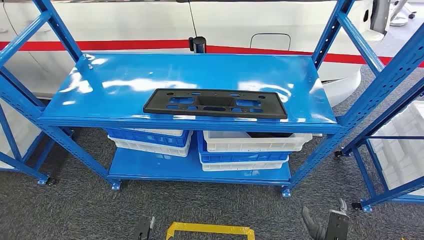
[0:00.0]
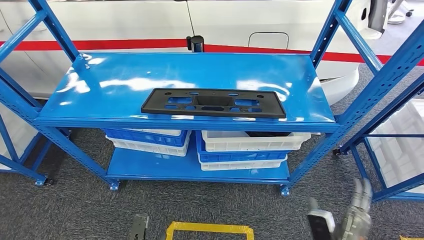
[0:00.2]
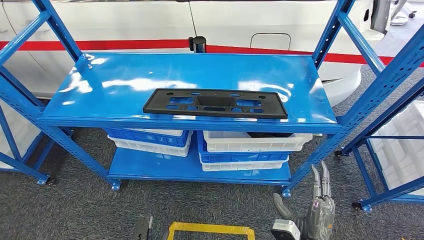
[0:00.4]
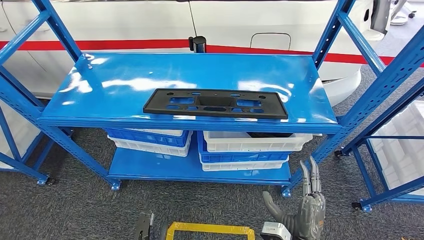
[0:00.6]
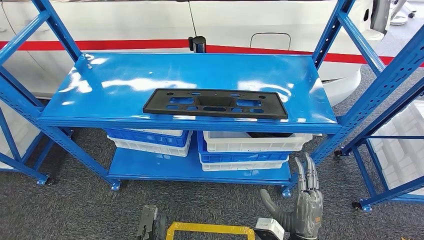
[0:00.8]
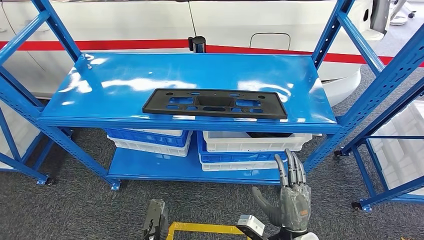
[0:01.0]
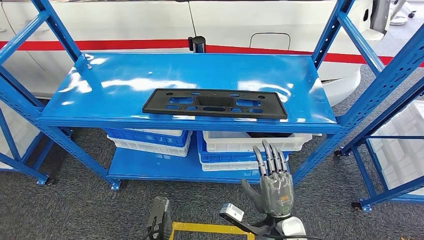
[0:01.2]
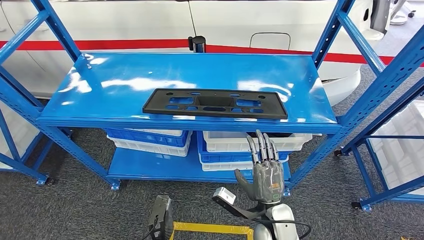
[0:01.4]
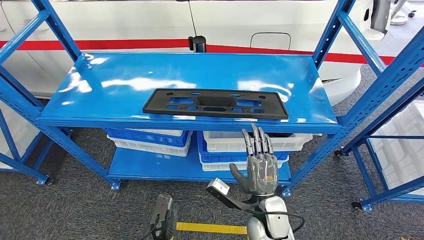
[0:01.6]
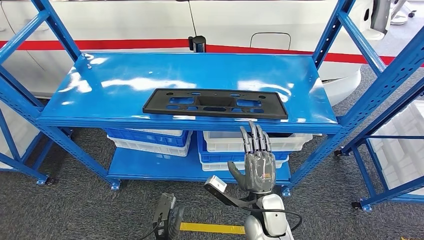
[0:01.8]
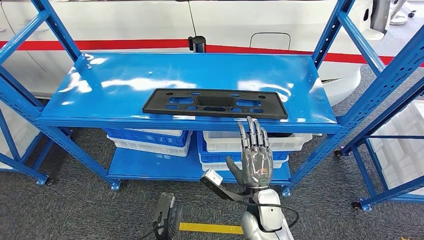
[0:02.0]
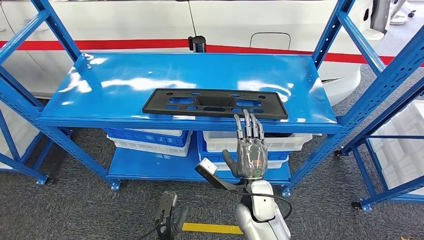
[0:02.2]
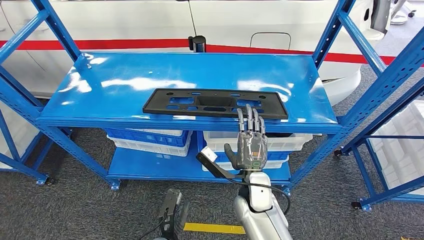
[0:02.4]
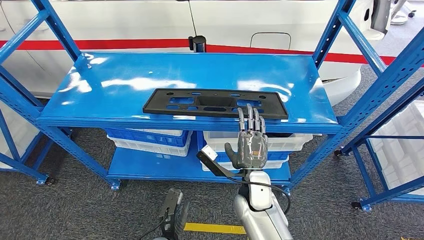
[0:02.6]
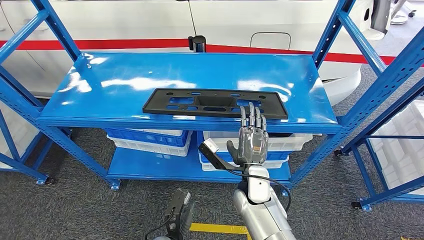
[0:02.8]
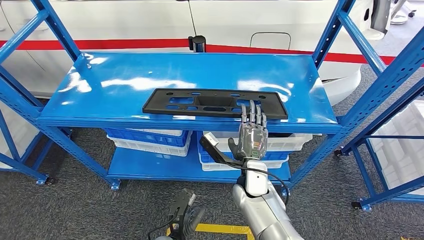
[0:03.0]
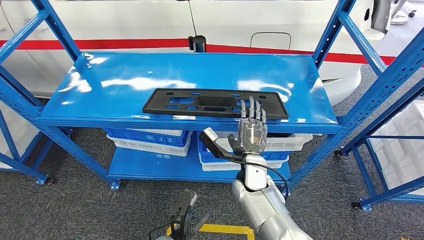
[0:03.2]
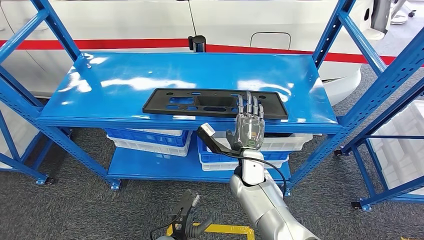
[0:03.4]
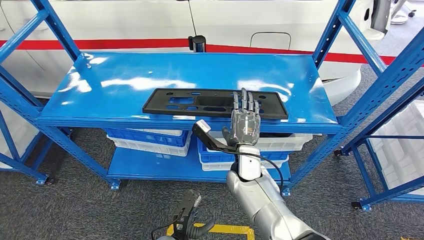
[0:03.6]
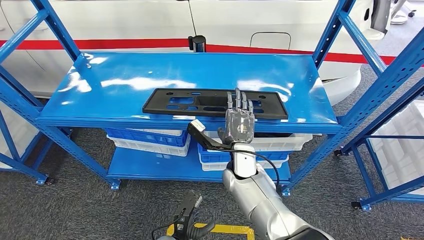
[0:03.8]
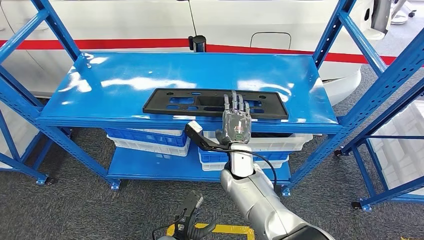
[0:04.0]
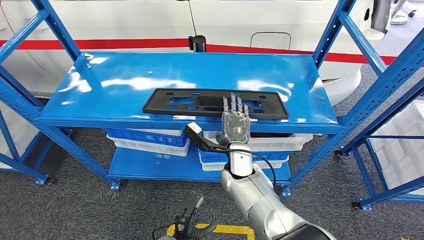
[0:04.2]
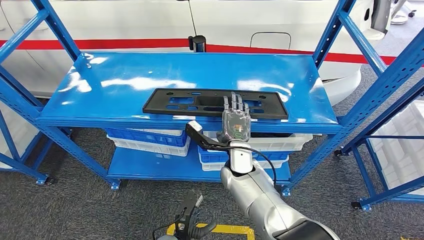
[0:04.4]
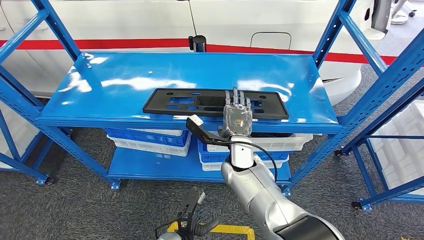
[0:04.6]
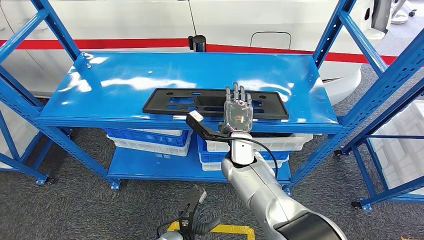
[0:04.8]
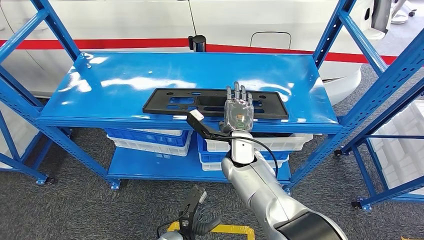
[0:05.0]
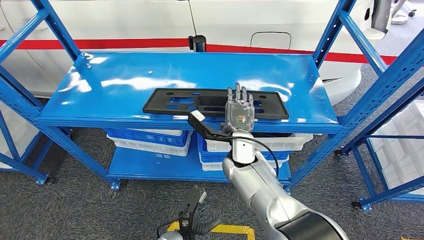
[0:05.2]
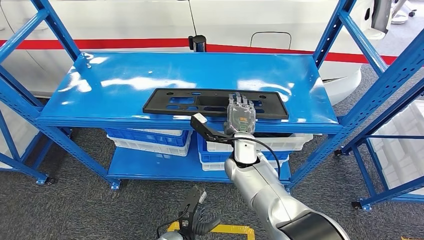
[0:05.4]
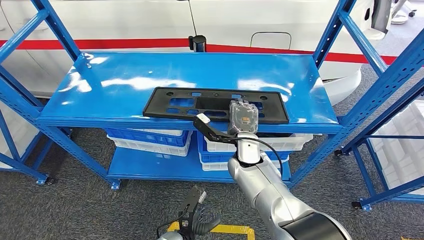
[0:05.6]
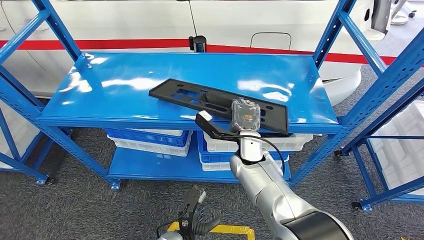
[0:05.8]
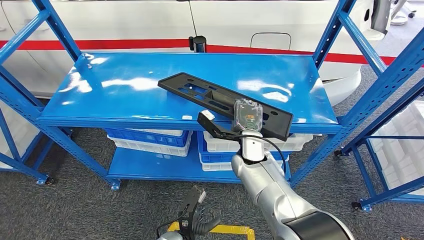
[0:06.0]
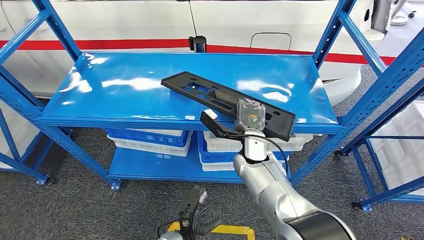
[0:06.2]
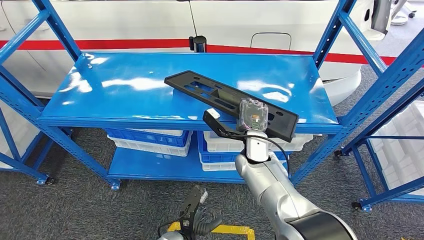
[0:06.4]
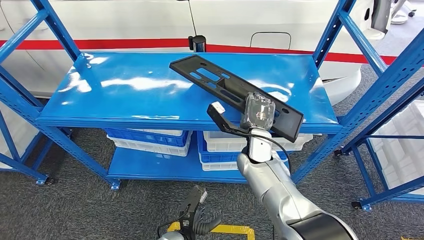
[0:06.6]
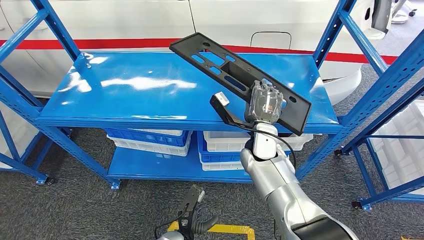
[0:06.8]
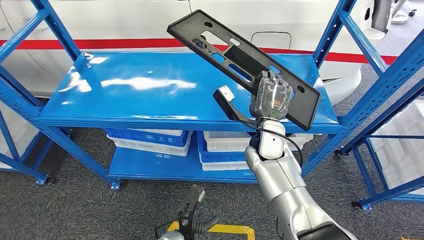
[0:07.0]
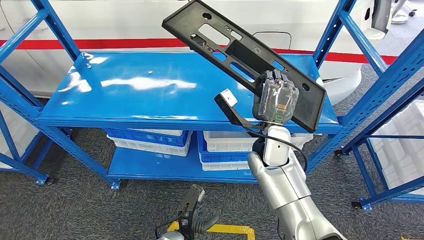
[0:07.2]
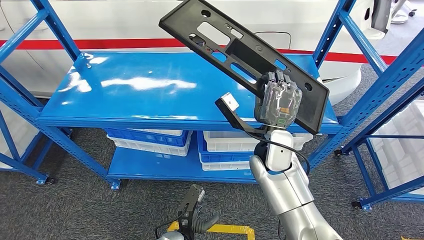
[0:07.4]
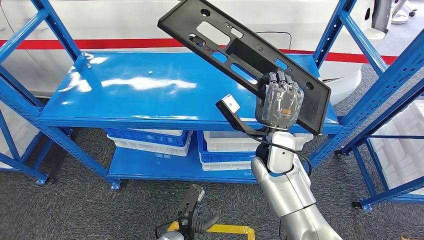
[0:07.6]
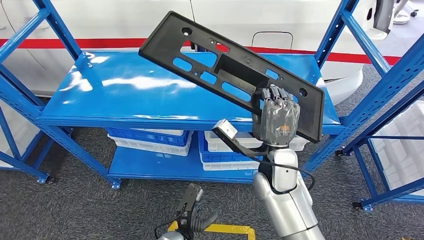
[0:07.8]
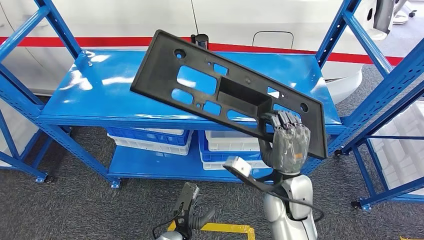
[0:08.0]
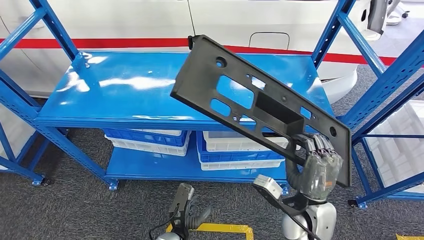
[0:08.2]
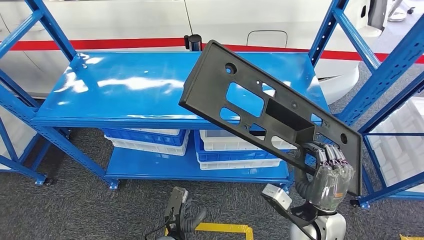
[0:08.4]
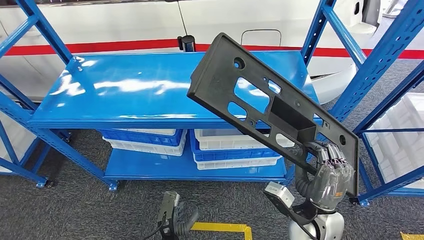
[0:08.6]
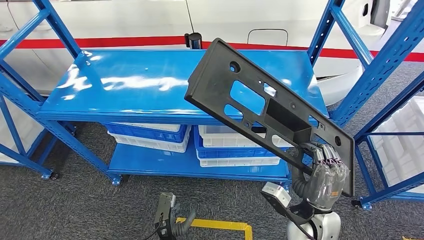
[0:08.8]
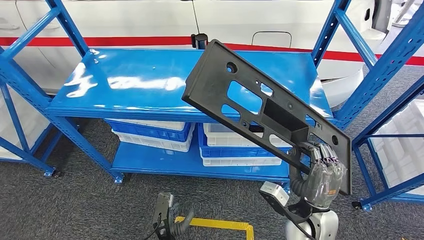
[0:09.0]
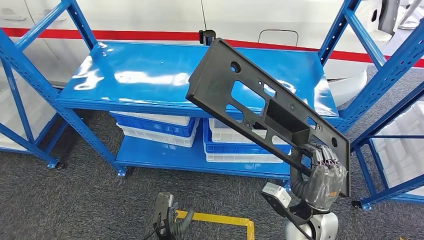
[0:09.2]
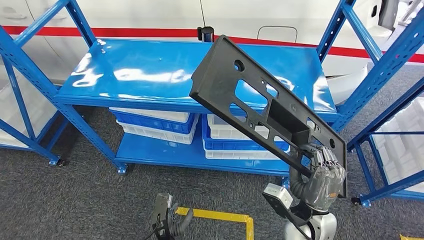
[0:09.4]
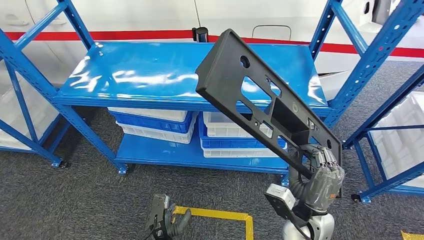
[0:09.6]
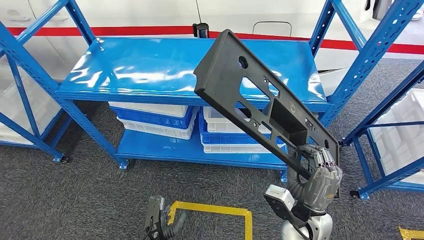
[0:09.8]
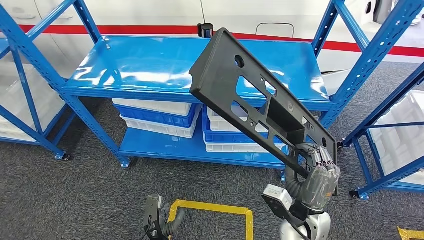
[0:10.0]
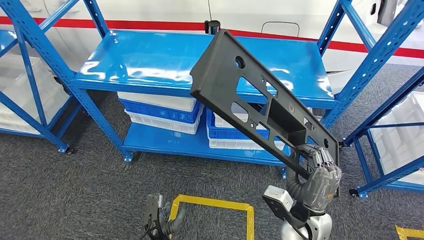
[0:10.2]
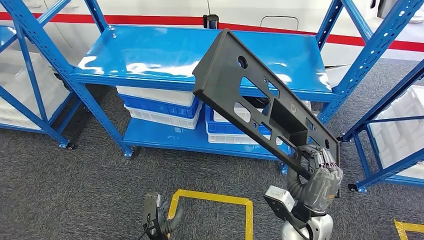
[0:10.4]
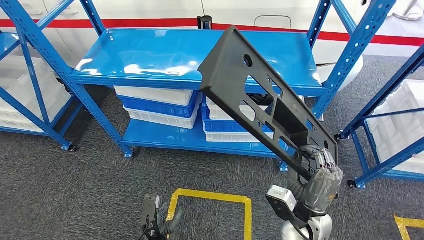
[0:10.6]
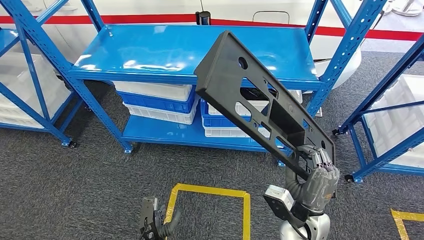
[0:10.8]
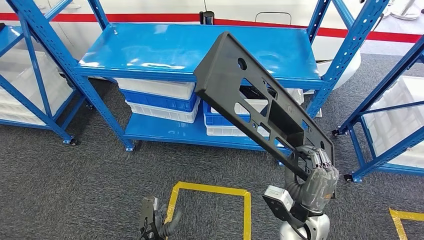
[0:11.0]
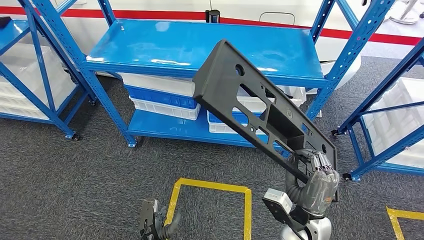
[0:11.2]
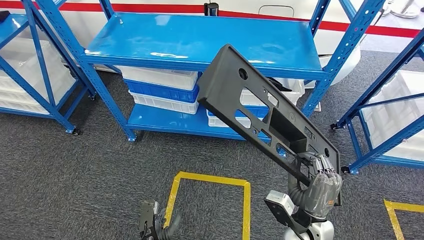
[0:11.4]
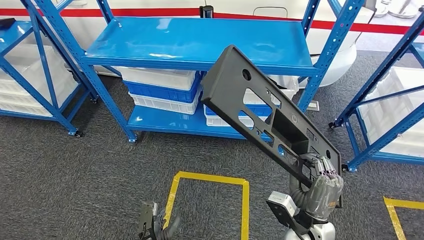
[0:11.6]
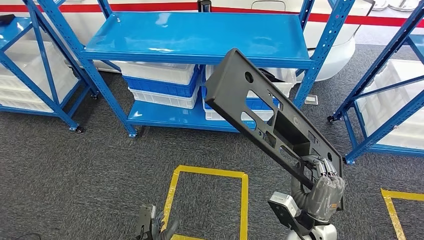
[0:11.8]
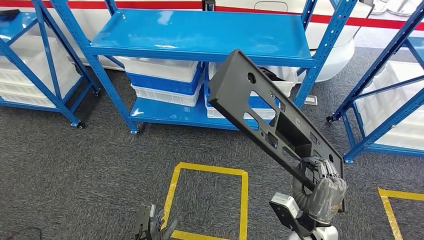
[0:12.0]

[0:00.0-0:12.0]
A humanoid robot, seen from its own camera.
Step, 0:00.0 to 0:09.6: Pick up the large material from the shelf.
0:01.6 to 0:03.0: The right hand heads forward, covering some 10 cm.
0:03.0 to 0:04.4: The right hand goes some 5 cm forward.
0:04.4 to 0:06.0: The hands move only a little.

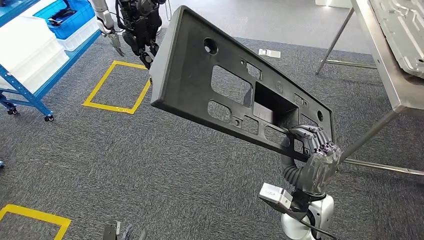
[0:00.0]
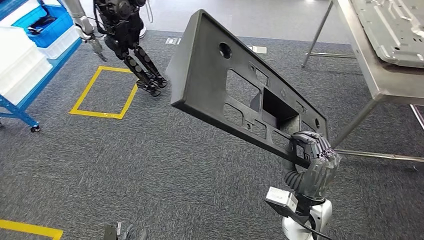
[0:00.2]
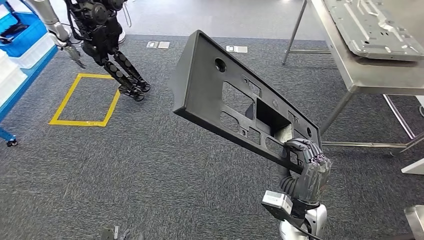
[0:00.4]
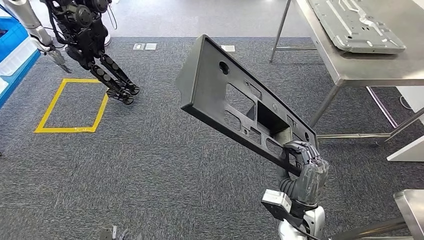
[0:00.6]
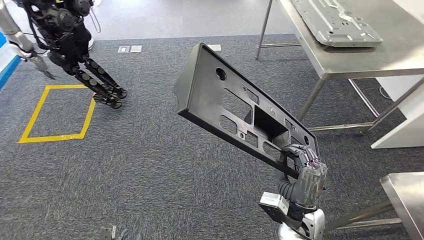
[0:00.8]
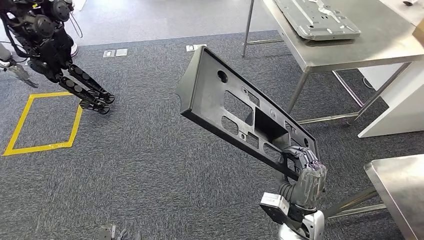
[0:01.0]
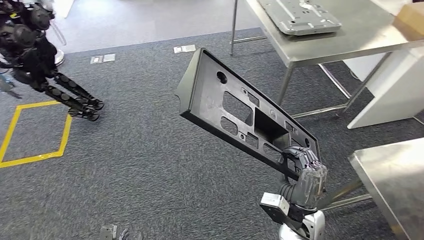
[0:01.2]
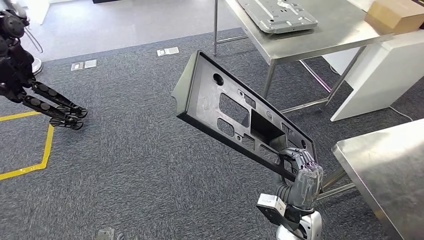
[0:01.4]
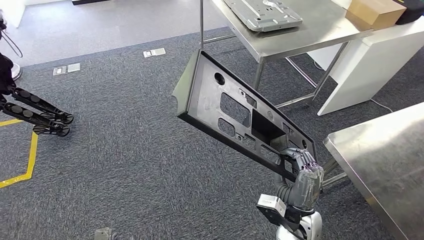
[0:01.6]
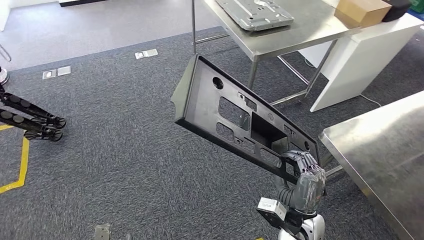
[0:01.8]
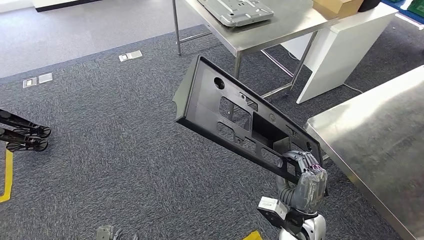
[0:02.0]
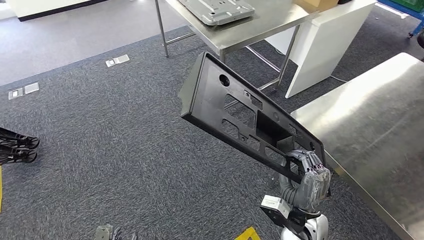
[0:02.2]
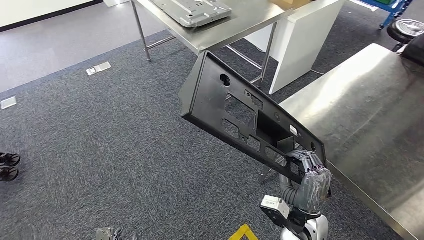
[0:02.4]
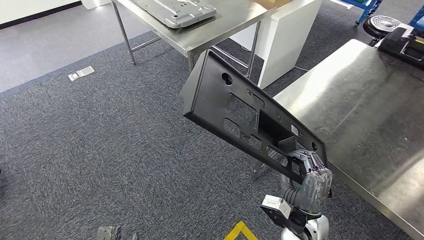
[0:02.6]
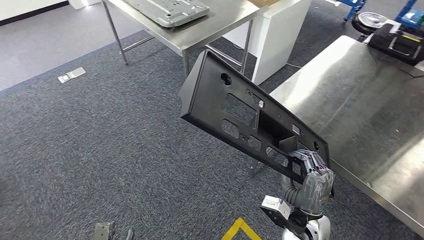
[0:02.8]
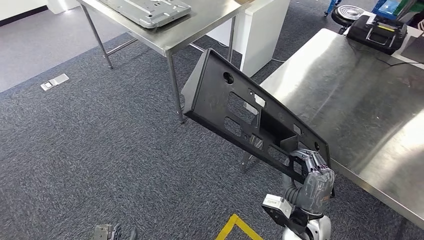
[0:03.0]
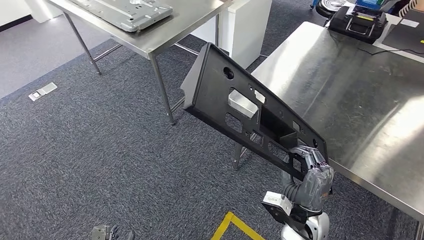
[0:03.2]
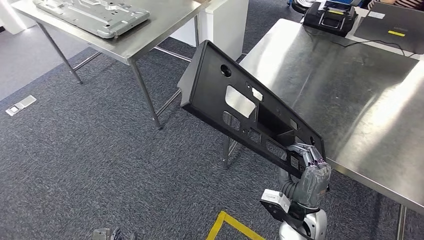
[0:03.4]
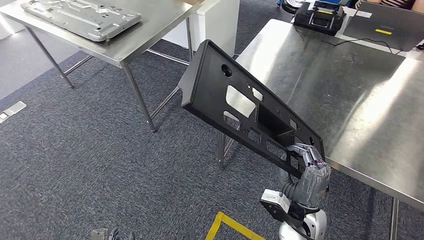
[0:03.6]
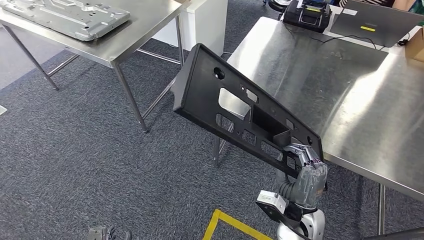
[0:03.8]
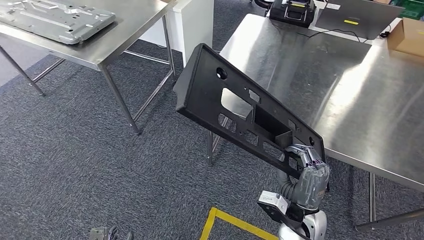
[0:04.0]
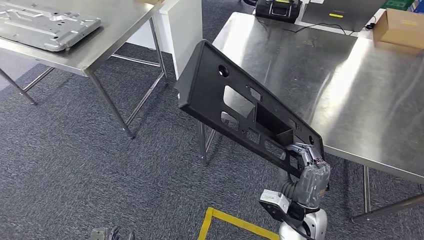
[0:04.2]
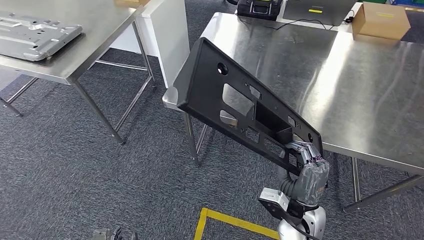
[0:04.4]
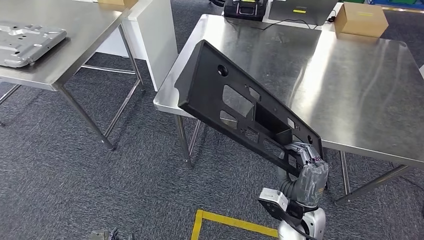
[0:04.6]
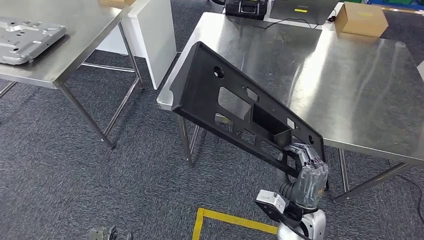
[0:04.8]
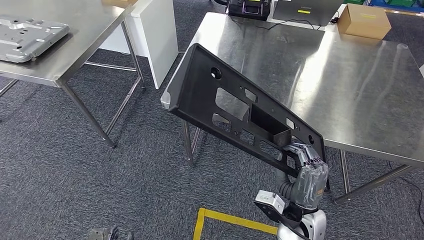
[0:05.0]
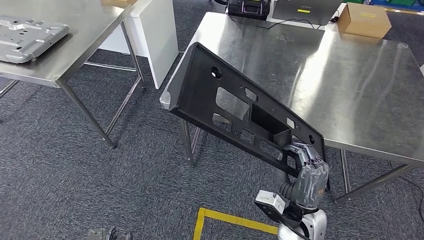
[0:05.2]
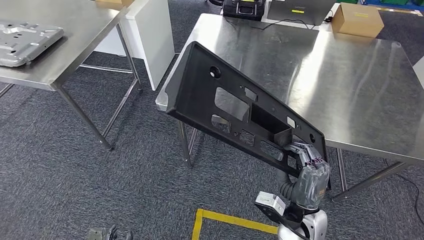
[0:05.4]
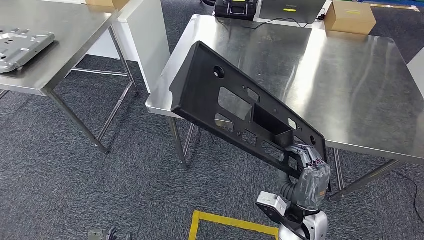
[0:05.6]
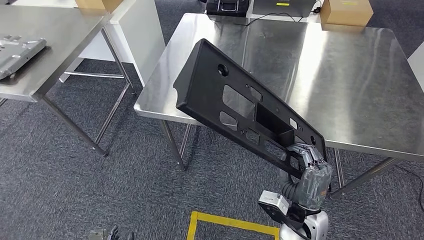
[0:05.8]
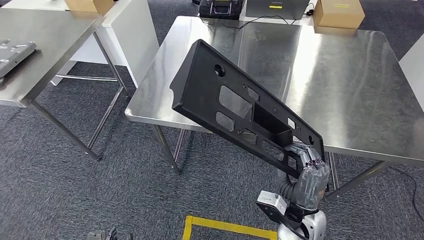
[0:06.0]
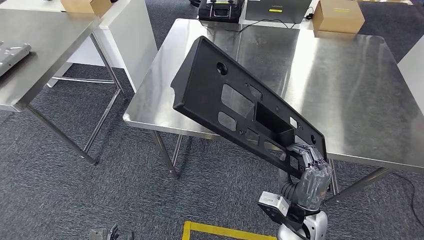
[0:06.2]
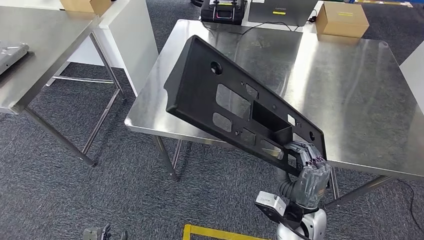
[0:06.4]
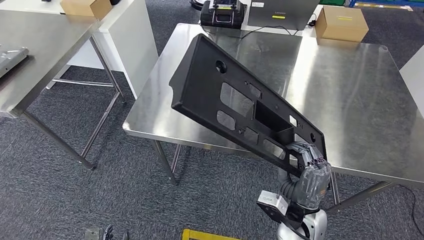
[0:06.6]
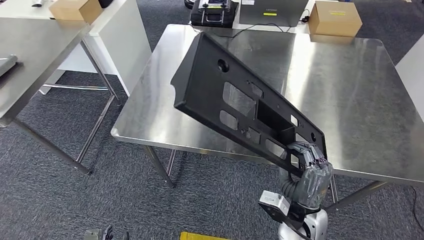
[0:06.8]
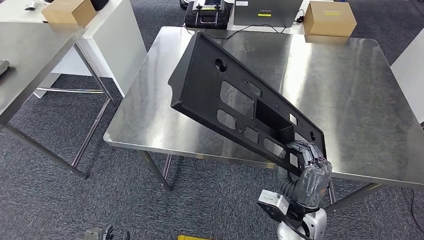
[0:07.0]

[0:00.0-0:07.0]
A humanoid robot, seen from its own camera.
Step, 0:00.0 to 0:06.6: Move the large material to the workbench.
